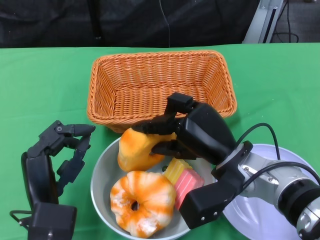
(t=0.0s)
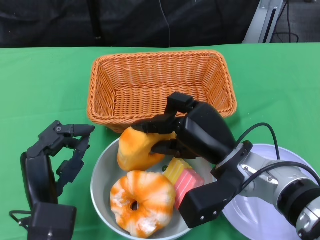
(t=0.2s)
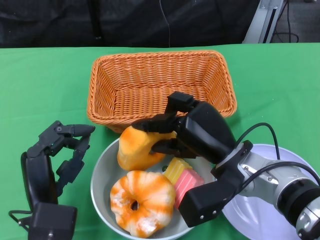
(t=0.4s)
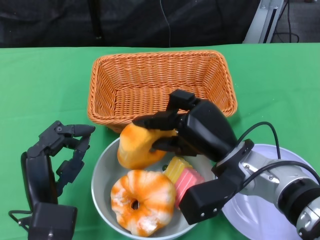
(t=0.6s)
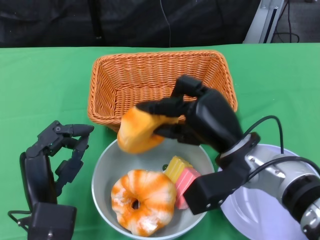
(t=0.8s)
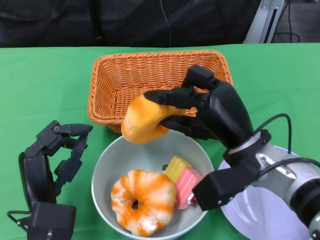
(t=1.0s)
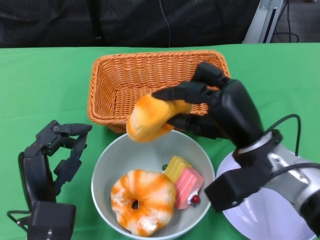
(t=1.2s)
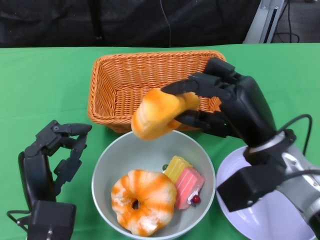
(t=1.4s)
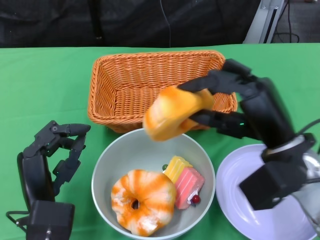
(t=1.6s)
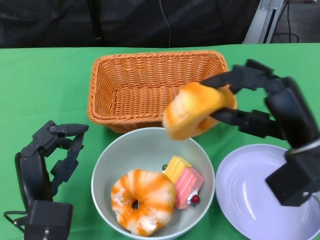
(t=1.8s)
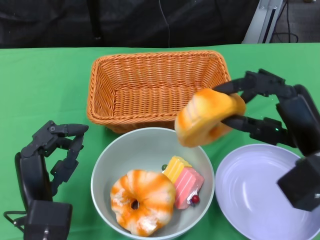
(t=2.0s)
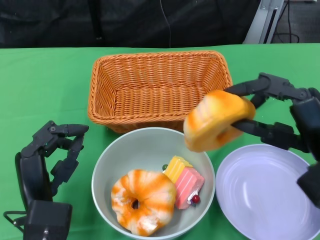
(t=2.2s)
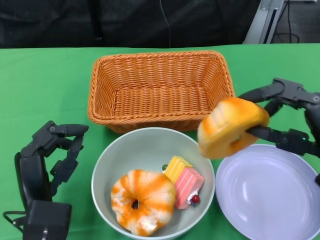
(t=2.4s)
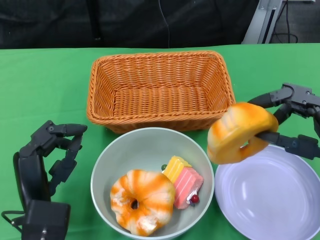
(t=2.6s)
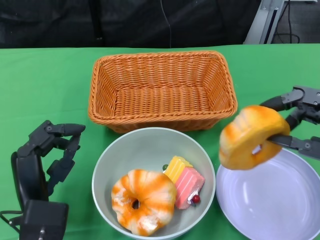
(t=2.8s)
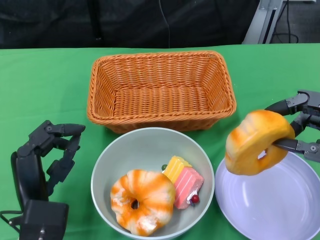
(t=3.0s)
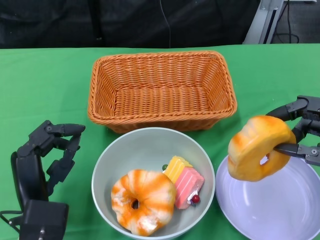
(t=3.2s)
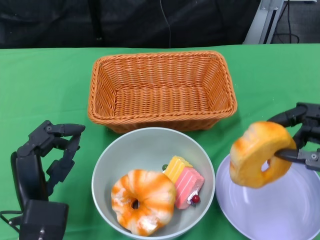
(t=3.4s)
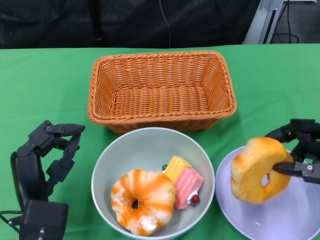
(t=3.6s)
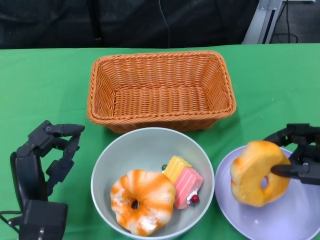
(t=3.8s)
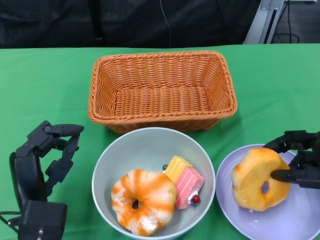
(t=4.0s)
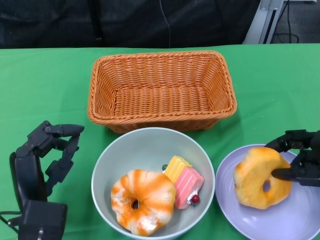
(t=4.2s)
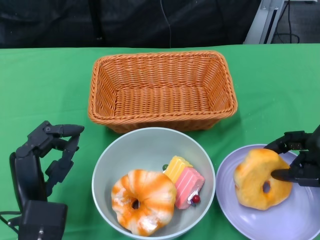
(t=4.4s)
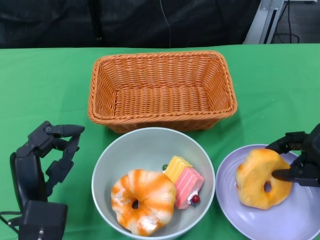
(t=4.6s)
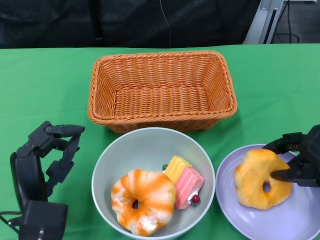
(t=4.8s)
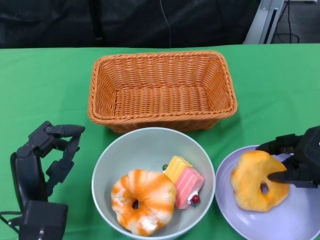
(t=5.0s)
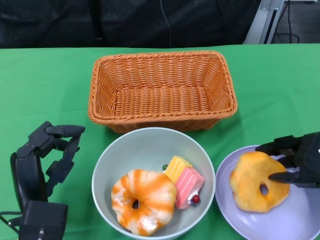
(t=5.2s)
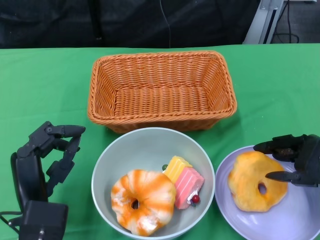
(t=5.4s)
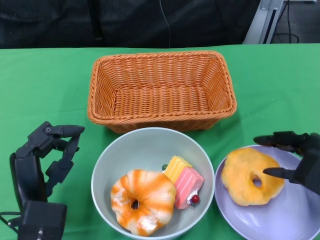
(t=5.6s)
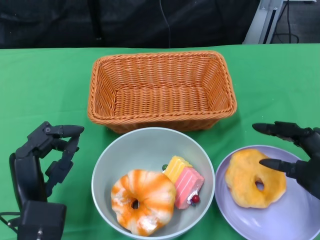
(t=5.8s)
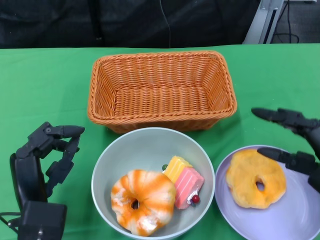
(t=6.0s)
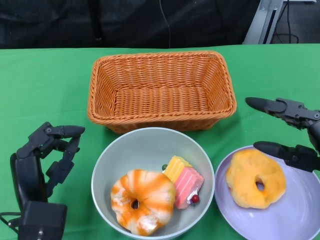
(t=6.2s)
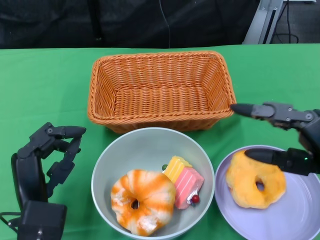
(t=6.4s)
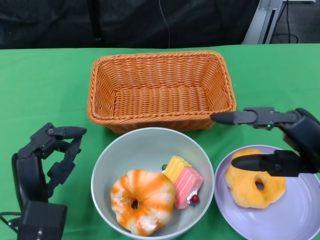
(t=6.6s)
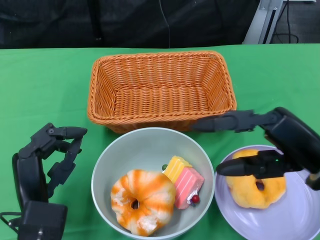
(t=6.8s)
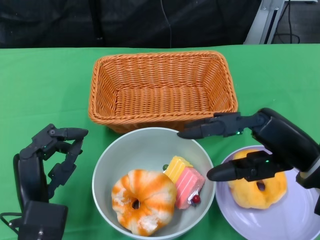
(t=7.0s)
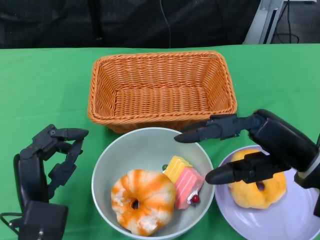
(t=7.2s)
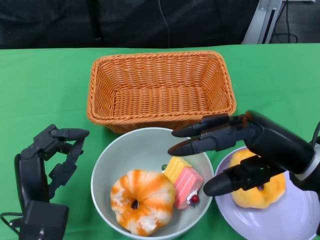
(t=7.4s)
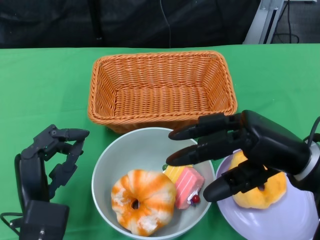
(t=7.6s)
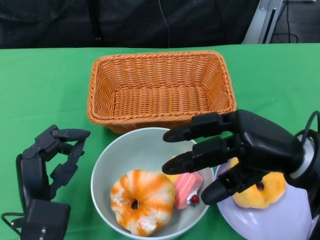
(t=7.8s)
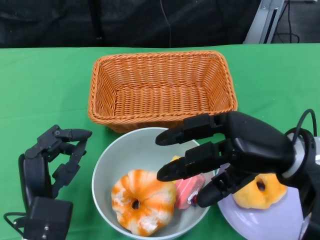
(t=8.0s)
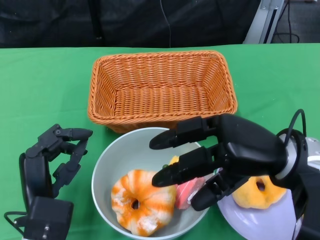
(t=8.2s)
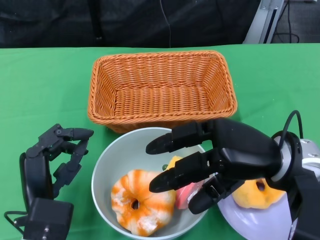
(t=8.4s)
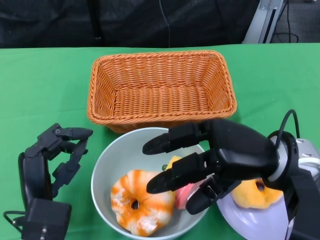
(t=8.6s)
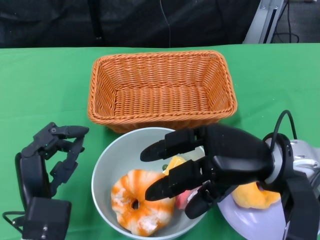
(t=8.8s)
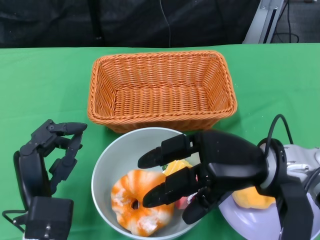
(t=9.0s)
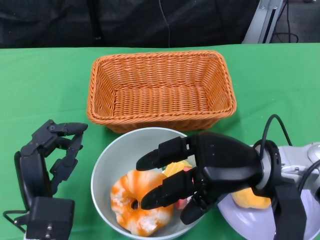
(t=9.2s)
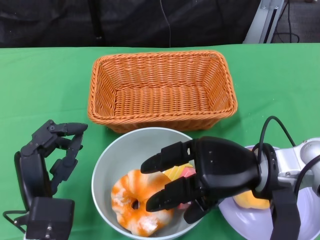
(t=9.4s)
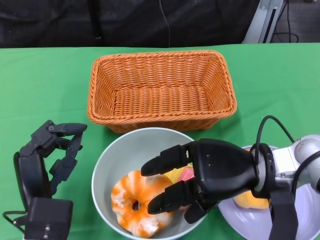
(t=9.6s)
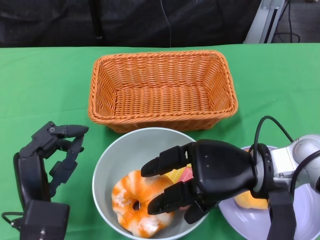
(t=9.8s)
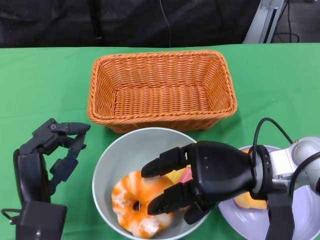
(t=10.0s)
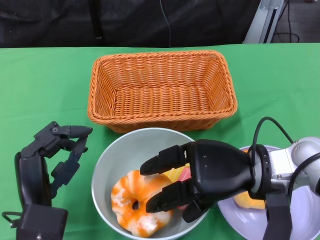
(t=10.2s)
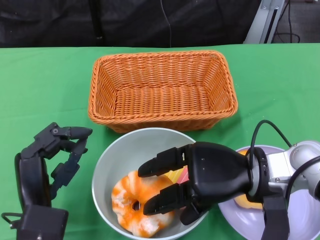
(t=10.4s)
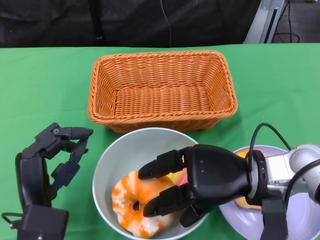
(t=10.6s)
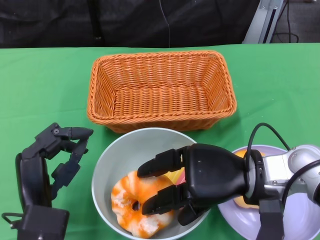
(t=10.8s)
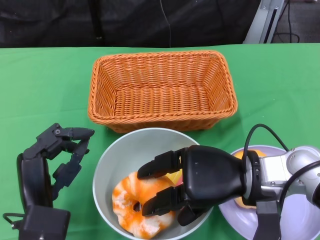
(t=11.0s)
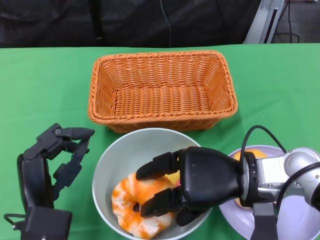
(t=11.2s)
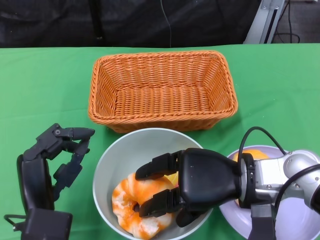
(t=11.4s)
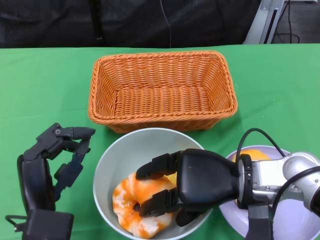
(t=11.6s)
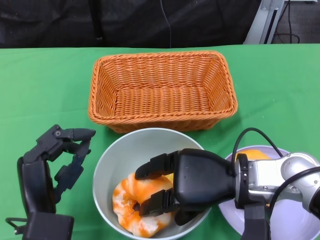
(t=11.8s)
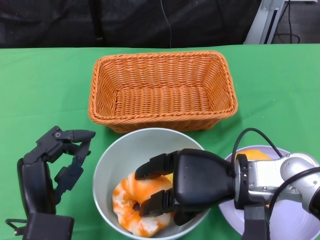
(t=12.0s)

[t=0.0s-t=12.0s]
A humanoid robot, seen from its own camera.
Step, t=0.0s to t=6.2s: Pick up the bread with the right gripper and place it on the plate.
t=0.0s to t=1.6s: The right hand is displaced to the right and upward by about 10 cm.
t=1.6s to t=3.0s: The right hand goes about 10 cm to the right.
t=3.0s to t=4.4s: The right hand is displaced downward by approximately 5 cm.
t=6.0s to t=7.6s: The right hand shifts about 5 cm to the left.
t=7.6s to t=9.0s: The right hand changes place by about 5 cm.
t=10.4s to t=12.0s: There are only small adjustments of the hands.

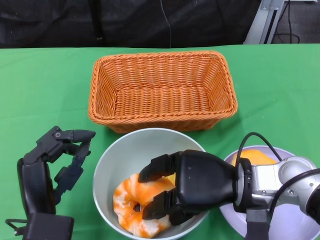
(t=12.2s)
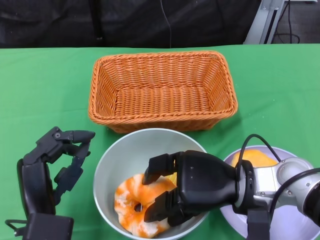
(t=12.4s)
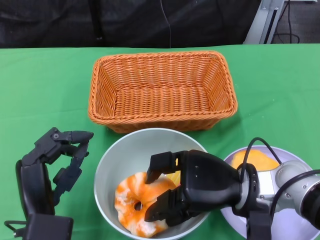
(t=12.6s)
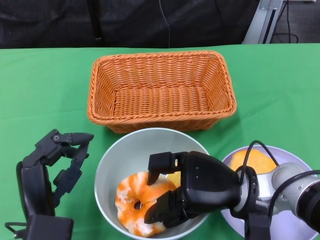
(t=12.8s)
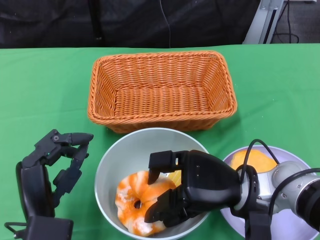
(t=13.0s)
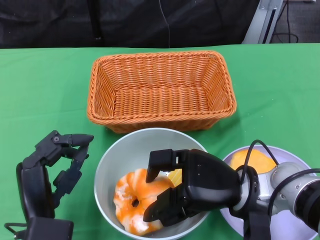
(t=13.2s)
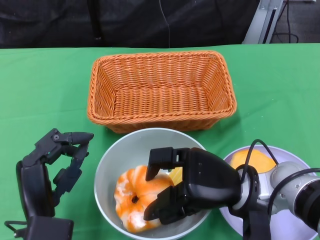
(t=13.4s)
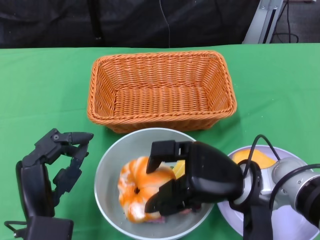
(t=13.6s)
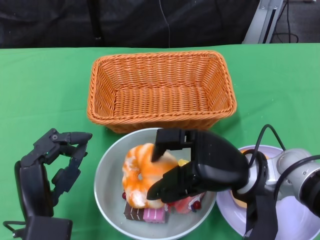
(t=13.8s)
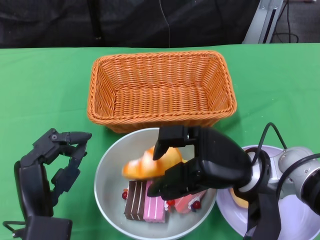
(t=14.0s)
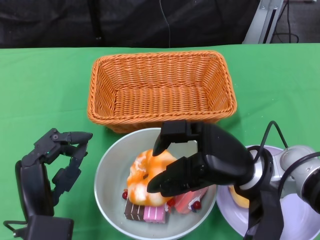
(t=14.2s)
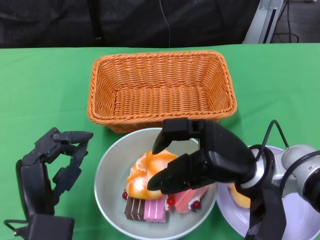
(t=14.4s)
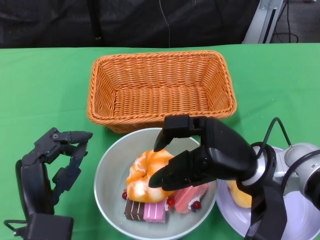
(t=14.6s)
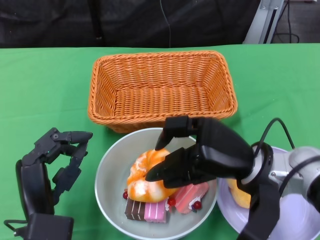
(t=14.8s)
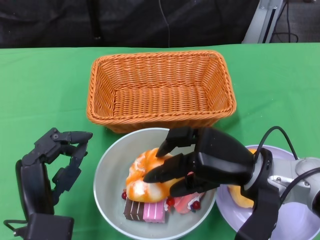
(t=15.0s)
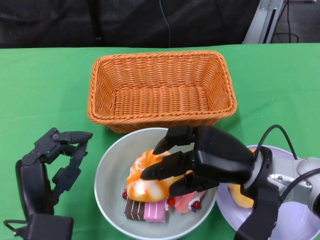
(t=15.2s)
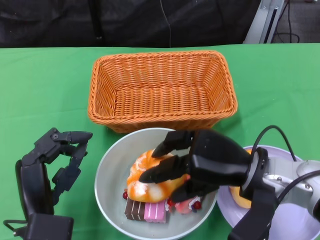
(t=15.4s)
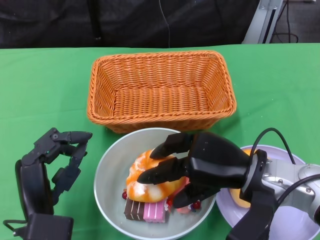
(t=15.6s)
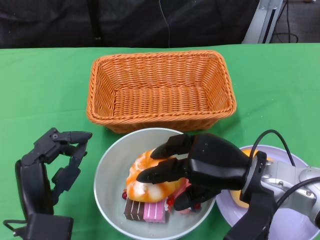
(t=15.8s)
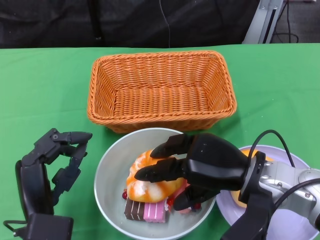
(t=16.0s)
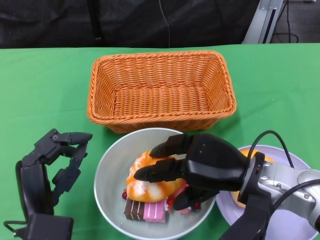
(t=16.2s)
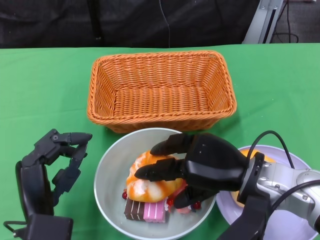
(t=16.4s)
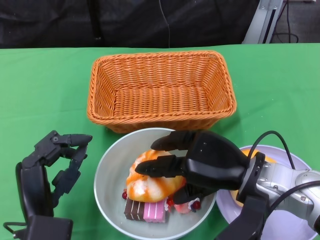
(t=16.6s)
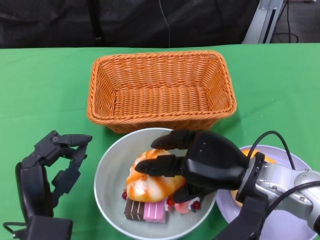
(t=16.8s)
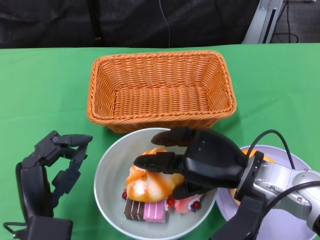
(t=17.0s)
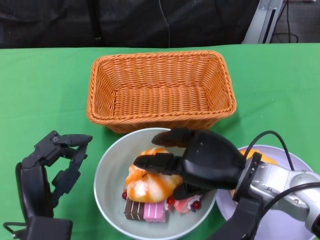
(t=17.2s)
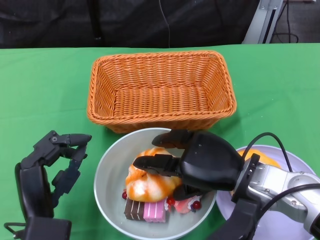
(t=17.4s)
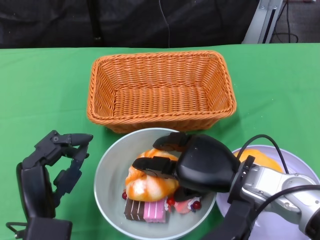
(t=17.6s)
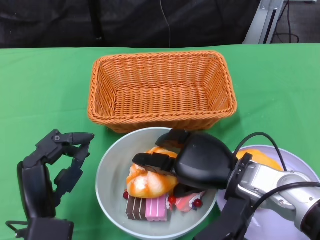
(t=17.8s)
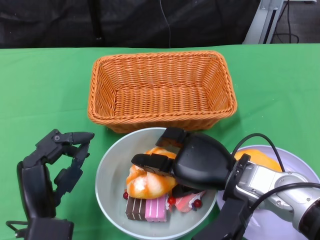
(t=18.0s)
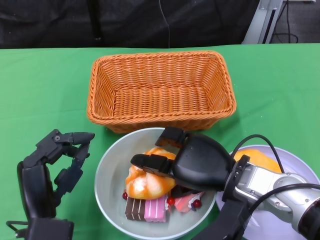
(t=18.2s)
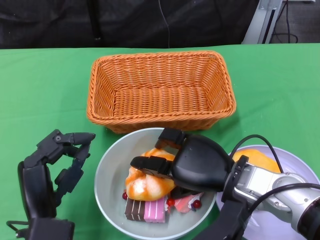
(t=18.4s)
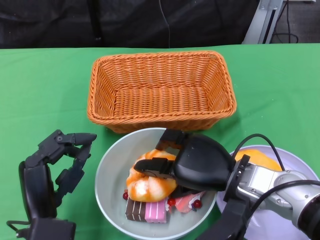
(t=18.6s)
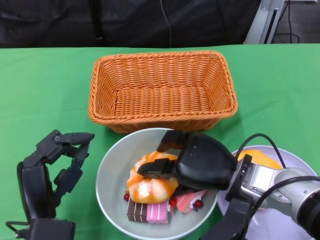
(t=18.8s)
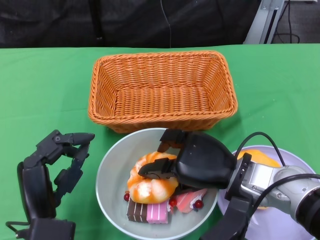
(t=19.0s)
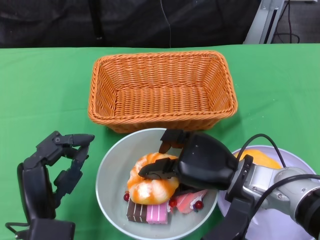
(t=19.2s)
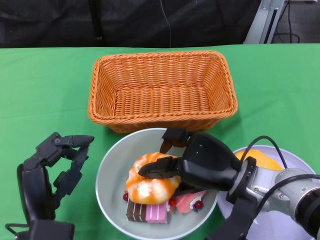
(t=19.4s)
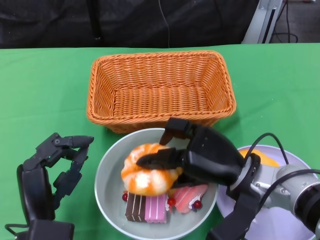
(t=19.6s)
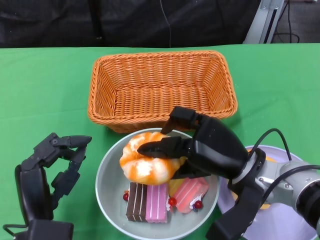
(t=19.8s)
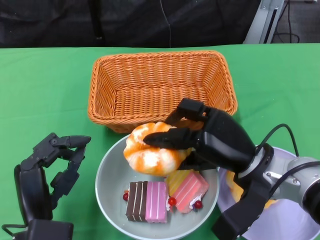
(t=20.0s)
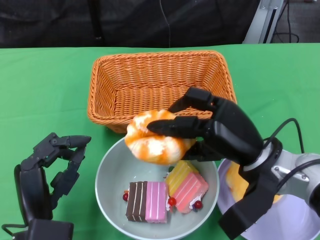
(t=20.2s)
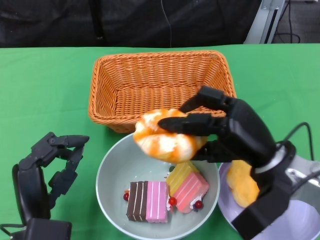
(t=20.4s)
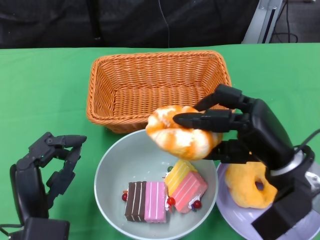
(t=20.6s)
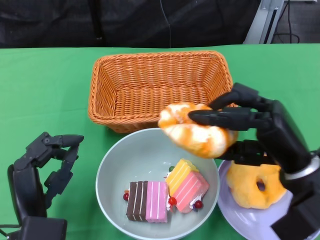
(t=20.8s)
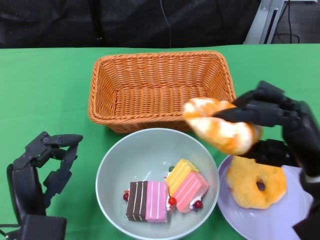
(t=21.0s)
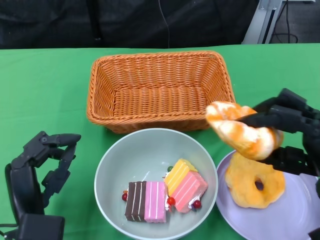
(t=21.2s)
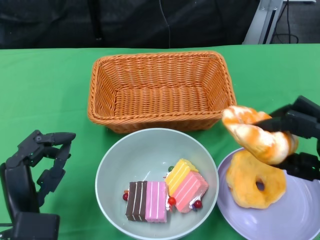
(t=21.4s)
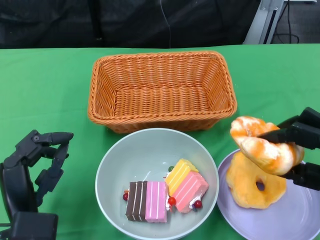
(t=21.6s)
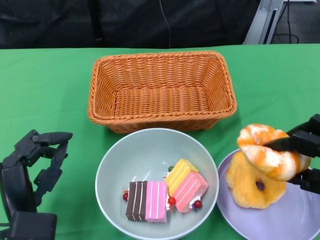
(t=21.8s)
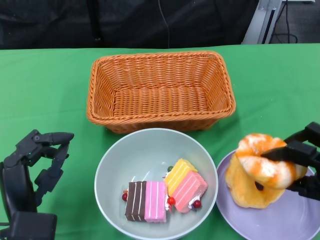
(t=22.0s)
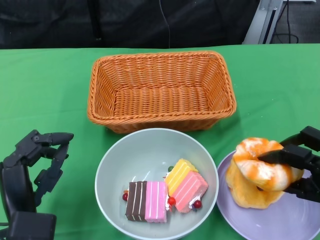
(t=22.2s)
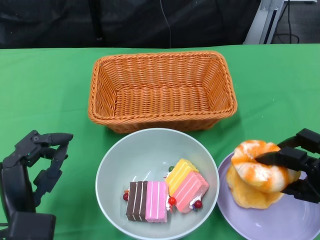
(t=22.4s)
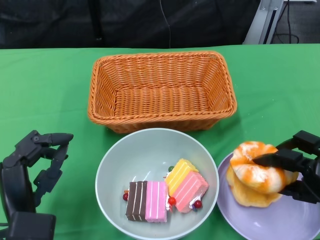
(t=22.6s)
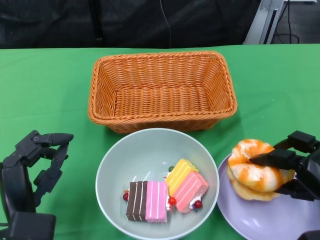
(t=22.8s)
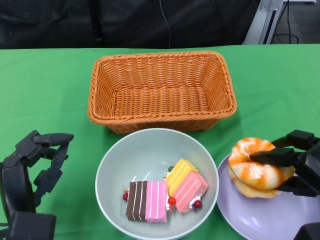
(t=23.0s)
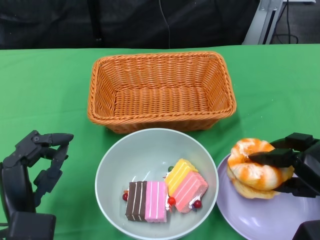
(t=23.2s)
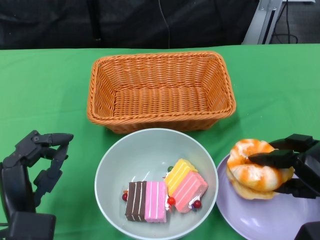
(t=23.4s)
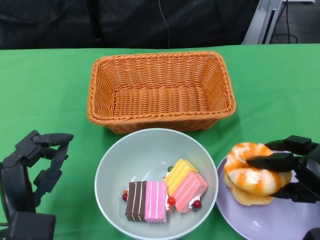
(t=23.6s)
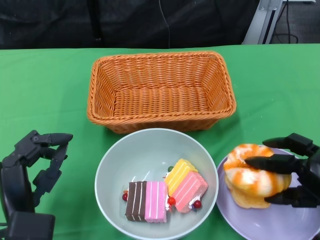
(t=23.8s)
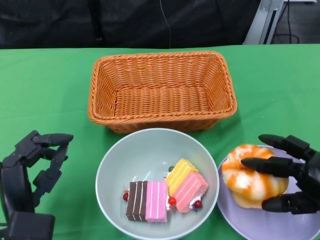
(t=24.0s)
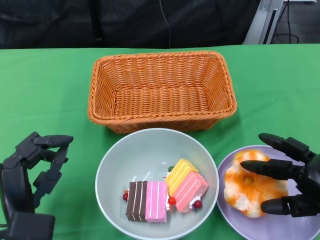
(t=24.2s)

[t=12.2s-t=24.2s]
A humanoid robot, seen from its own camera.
t=13.8s to t=15.2s: The hands move only a little.
t=15.2s to t=16.6s: The hands move only a little.
t=16.6s to t=18.2s: The hands make only small movements.
t=19.8s to t=21.2s: The right hand travels to the right by about 10 cm.
t=21.2s to t=22.6s: The right hand is displaced downward by about 5 cm.
t=22.6s to t=24.2s: The hands stay close to where they were, moving slightly.
